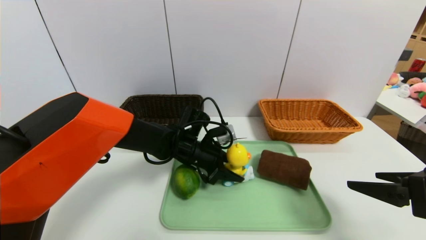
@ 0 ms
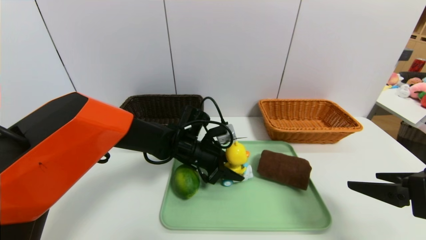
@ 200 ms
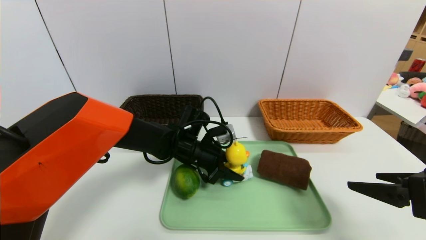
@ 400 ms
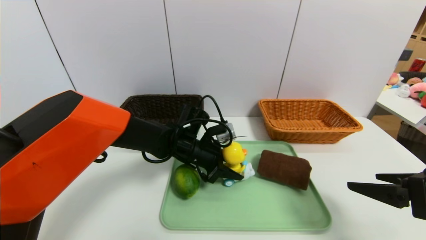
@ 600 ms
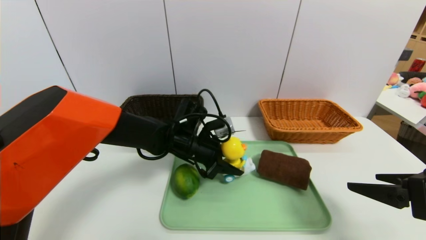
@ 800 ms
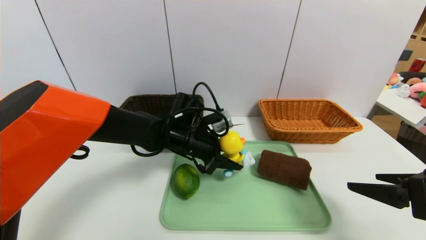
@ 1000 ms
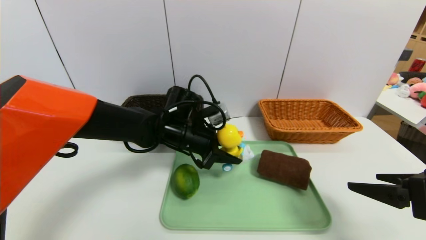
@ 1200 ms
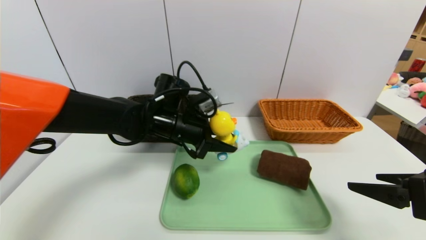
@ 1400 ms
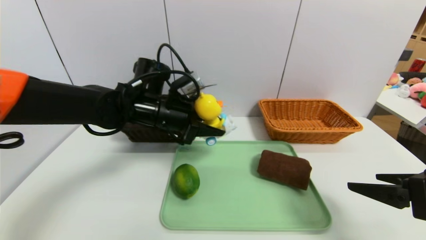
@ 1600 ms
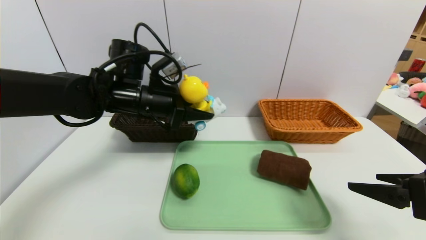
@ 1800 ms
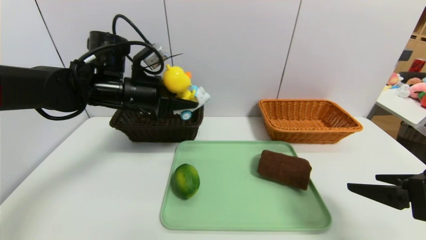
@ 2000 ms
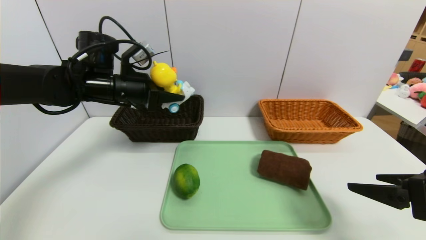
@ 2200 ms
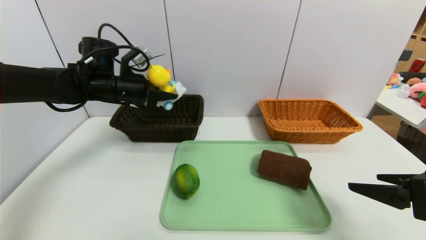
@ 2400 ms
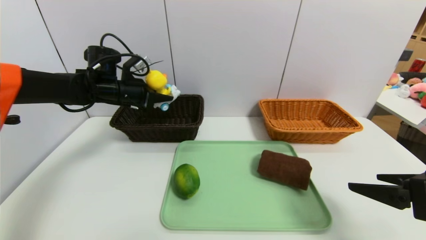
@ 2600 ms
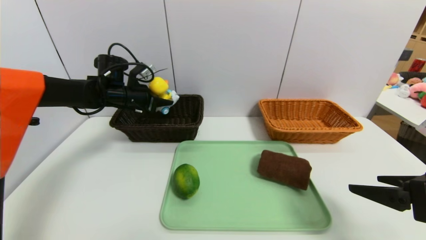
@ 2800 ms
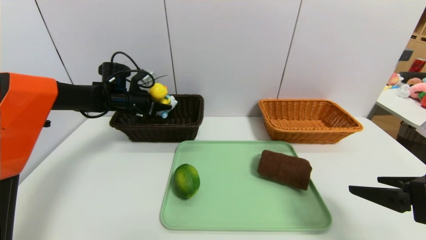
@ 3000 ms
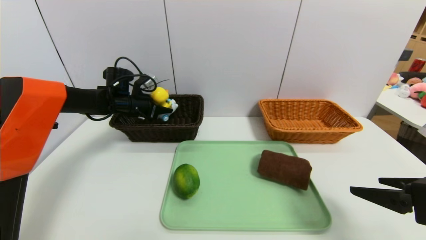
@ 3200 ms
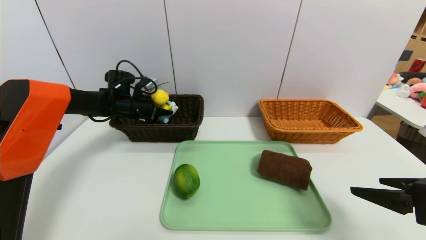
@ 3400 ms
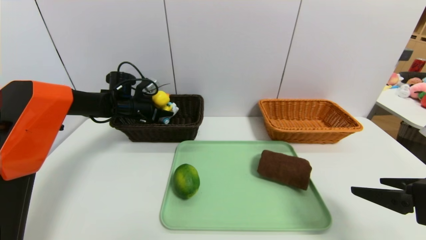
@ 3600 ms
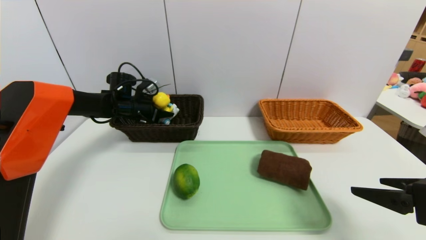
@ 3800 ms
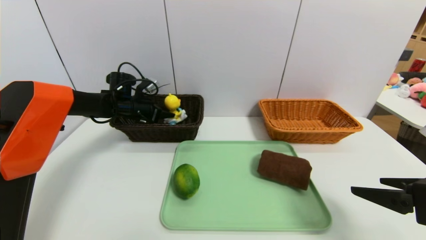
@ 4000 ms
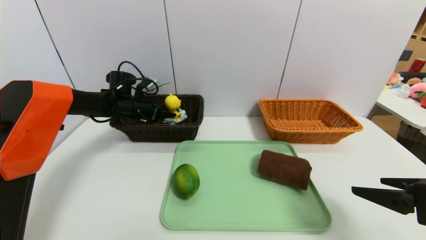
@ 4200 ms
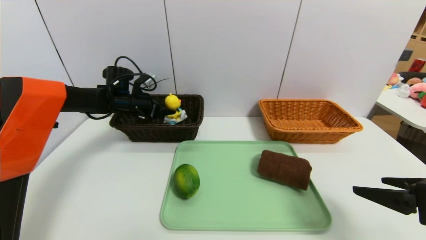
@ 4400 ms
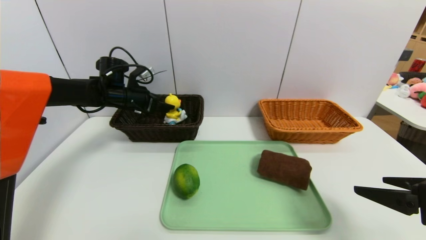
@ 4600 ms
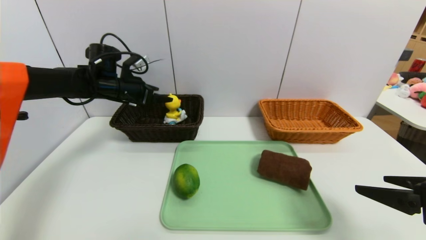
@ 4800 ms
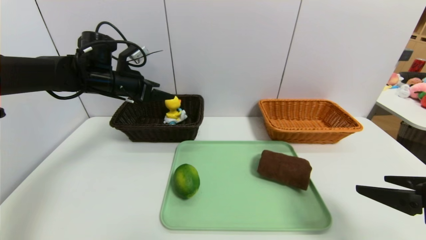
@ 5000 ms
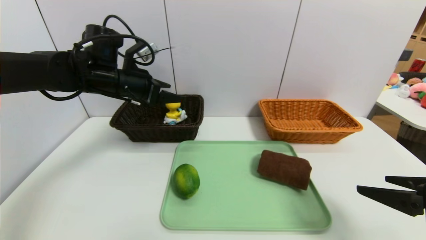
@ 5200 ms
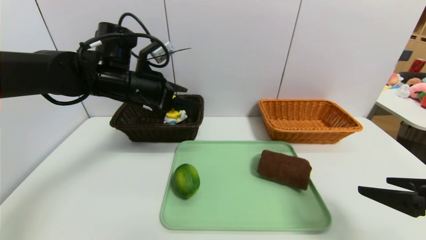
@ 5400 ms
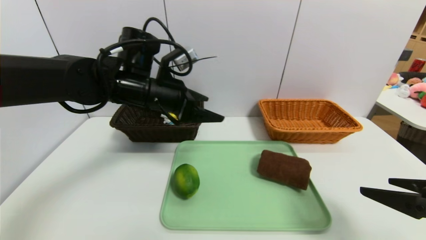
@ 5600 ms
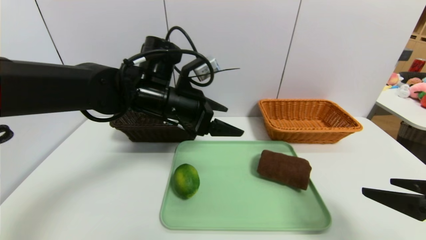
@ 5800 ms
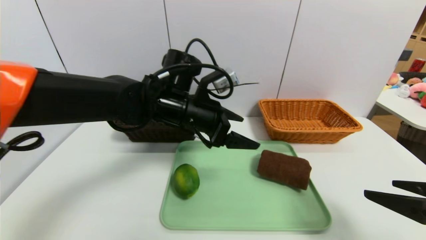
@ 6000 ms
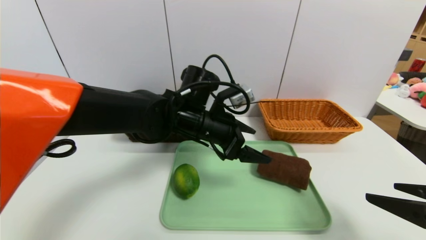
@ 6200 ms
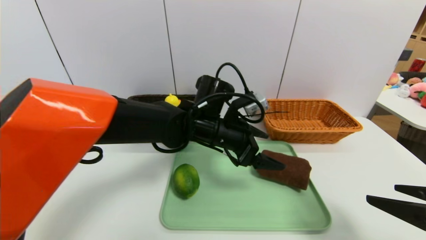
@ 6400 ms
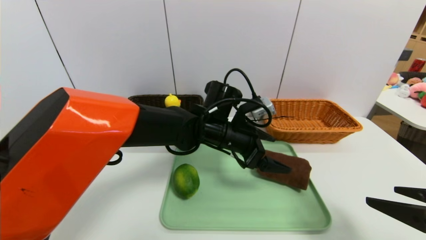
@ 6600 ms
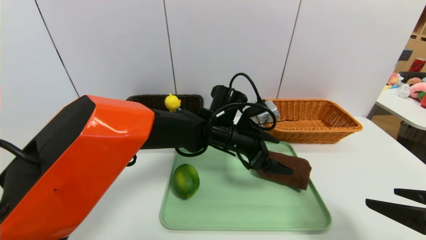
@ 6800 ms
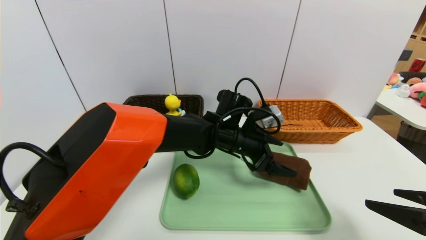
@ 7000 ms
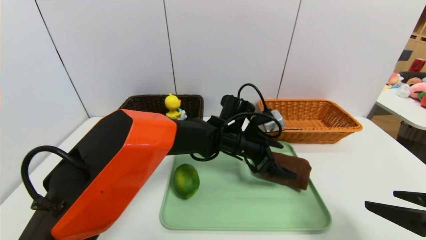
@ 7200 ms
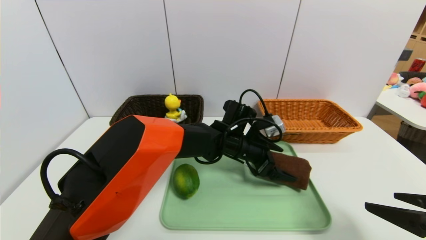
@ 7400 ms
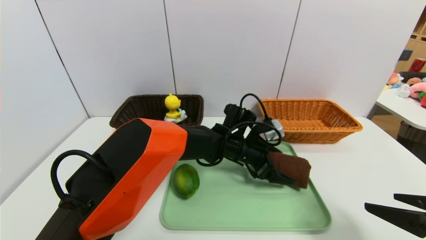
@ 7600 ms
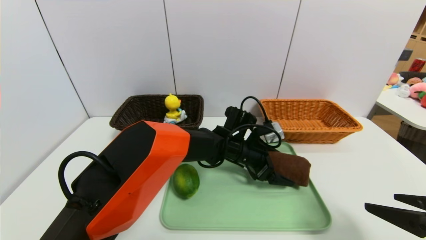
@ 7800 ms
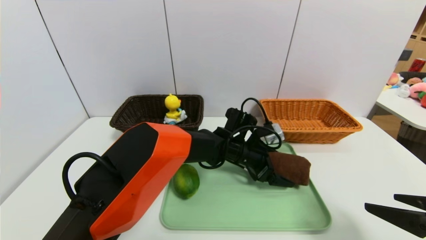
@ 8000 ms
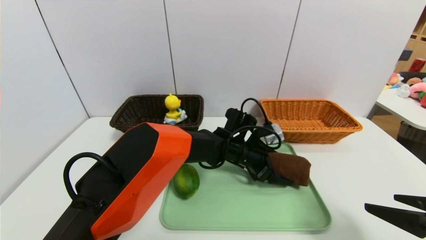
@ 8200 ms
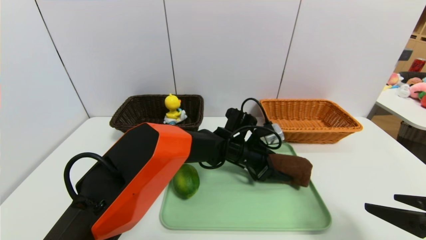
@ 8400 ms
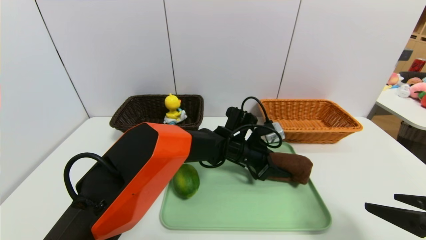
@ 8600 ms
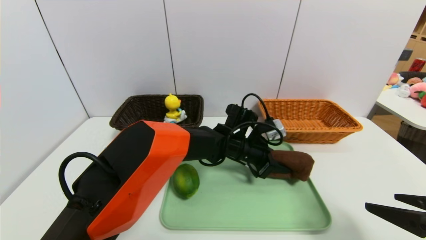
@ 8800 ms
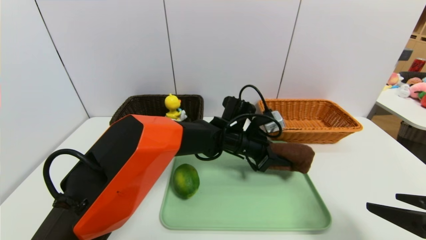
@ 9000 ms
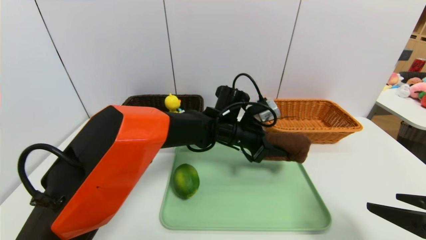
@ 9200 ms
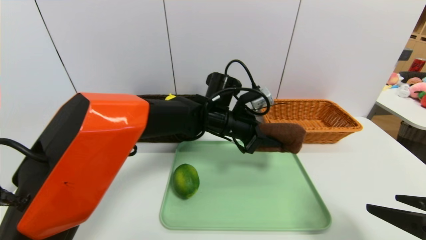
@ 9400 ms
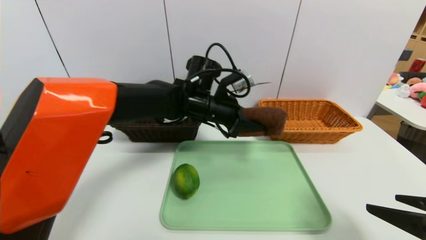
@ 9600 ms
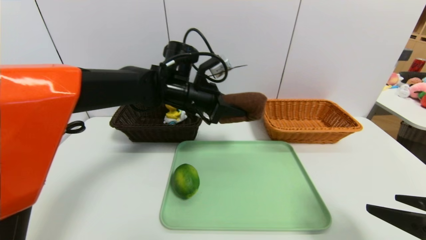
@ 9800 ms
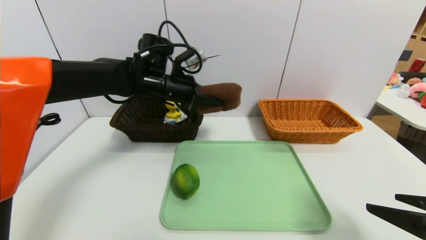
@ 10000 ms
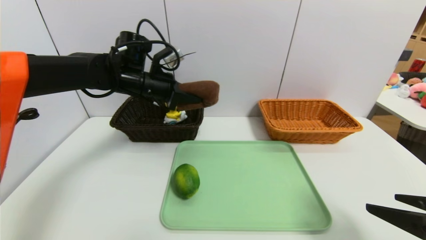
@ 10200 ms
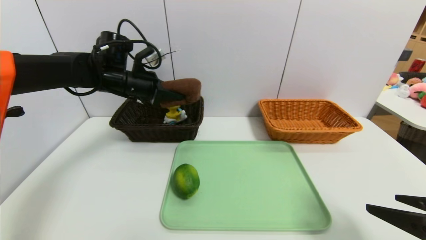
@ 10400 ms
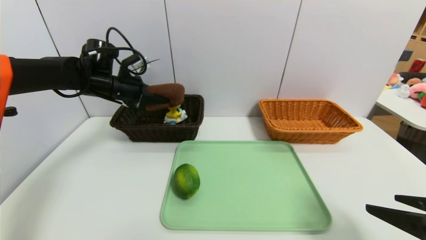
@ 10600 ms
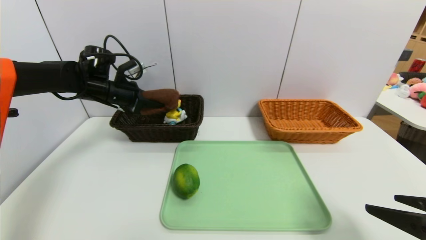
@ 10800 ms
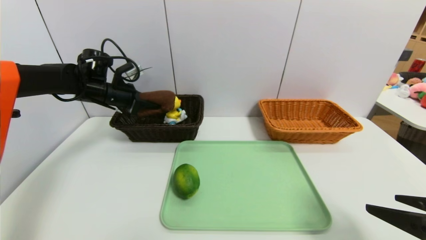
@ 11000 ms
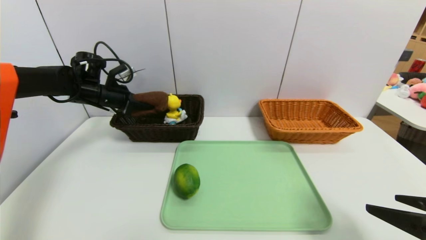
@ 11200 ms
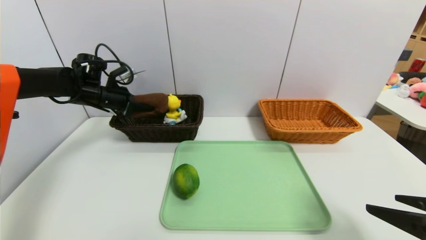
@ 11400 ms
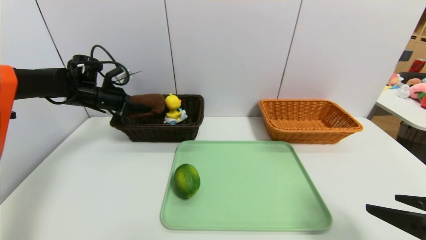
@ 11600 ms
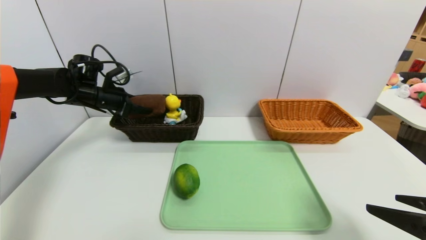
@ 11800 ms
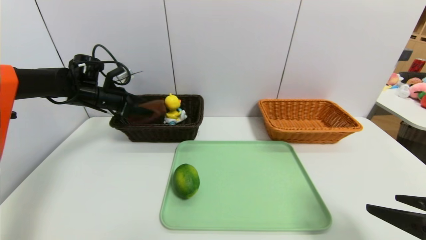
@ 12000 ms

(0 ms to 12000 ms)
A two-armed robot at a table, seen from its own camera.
Task of the whole recording: place the food in the right basket with the right gripper, and place the non food items in the left basket with the left gripper.
Step, 0 ms - 4200 ms: Grasp the yellow duck and put it in the left basket.
0 ms - 1600 ms: The left gripper heads upward and to the left, covering approximately 15 cm.
1600 ms - 3000 ms: The left gripper is displaced to the left and forward by some 20 cm.
3000 ms - 4400 ms: The left gripper opens its fingers.
4400 ms - 6000 ms: The left gripper heads to the right and backward, covering approximately 25 cm.
6000 ms - 7600 ms: The left gripper moves downward and to the right, roughly 15 cm.
7600 ms - 9000 ms: The left gripper closes up.
9000 ms - 10400 ms: The left gripper shifts some 30 cm to the left and upward.
10400 ms - 12000 ms: The left gripper travels to the left by approximately 10 cm, and opens.

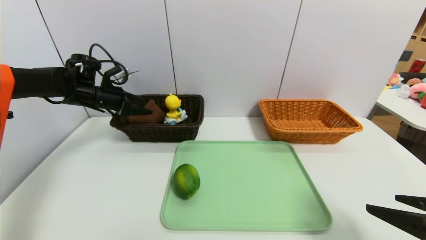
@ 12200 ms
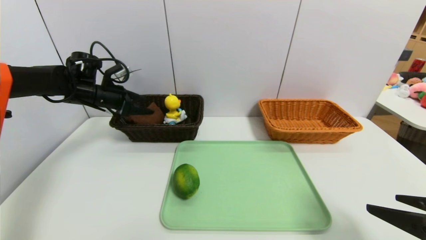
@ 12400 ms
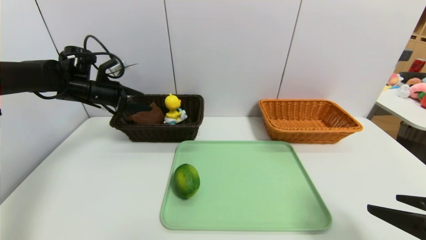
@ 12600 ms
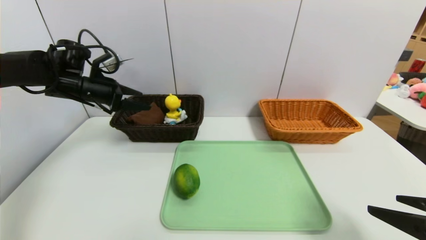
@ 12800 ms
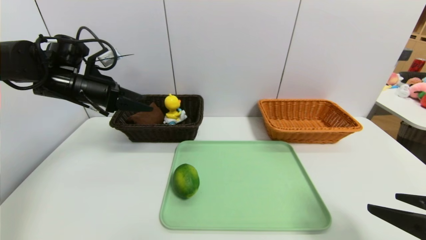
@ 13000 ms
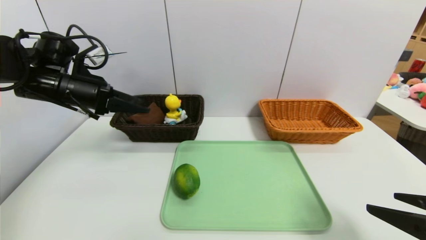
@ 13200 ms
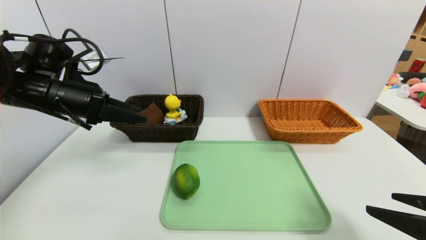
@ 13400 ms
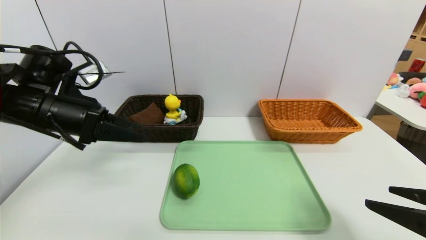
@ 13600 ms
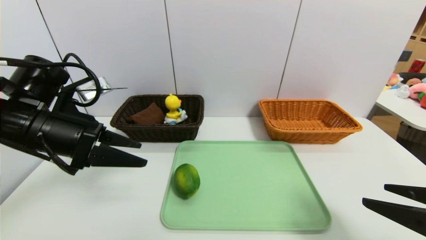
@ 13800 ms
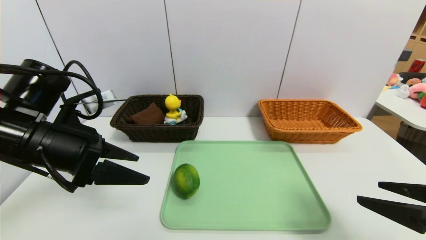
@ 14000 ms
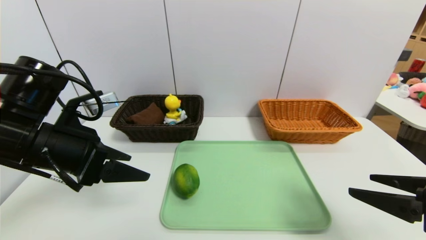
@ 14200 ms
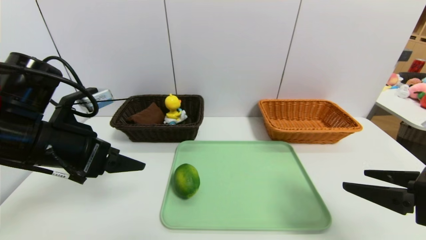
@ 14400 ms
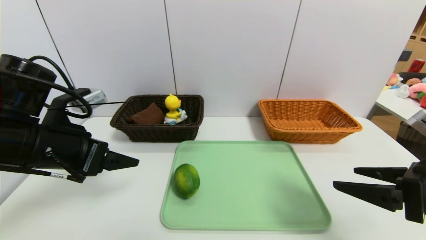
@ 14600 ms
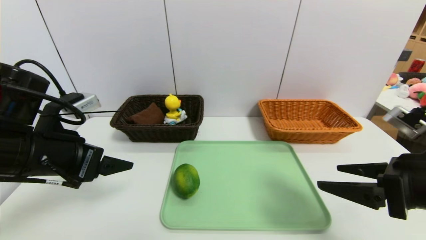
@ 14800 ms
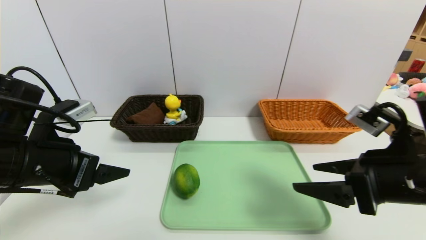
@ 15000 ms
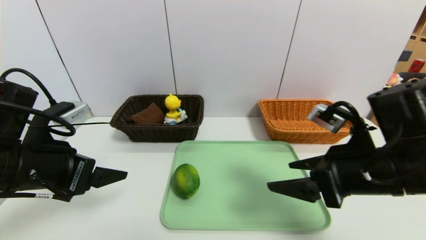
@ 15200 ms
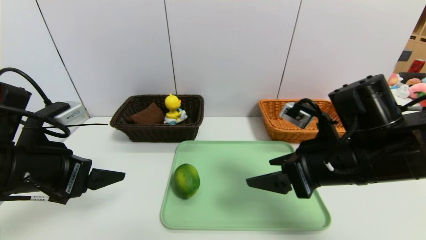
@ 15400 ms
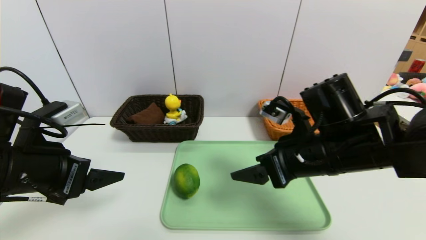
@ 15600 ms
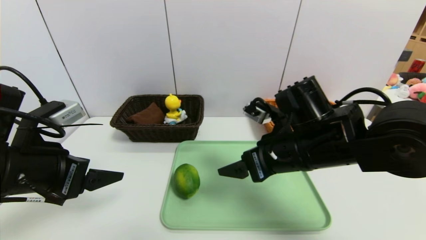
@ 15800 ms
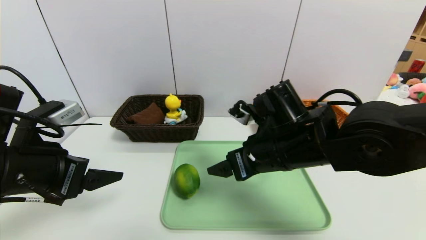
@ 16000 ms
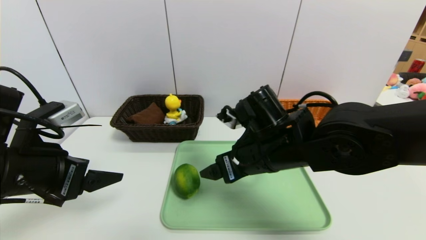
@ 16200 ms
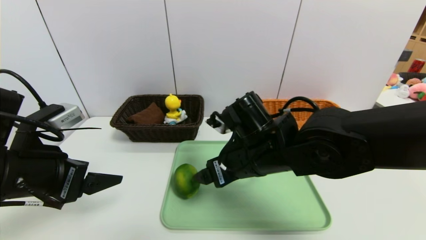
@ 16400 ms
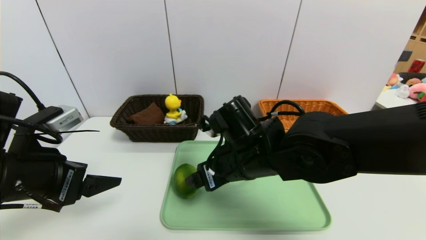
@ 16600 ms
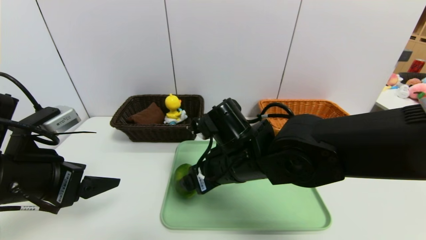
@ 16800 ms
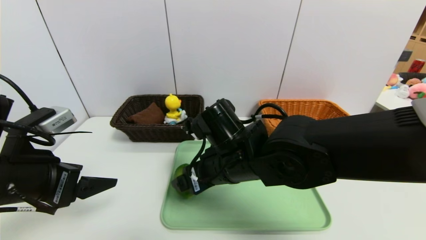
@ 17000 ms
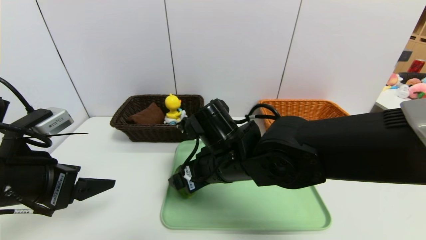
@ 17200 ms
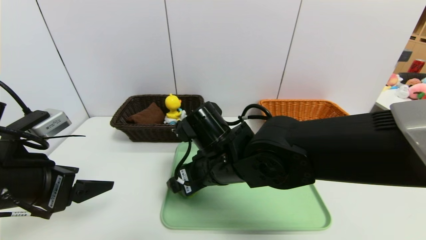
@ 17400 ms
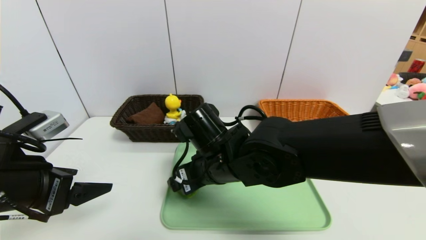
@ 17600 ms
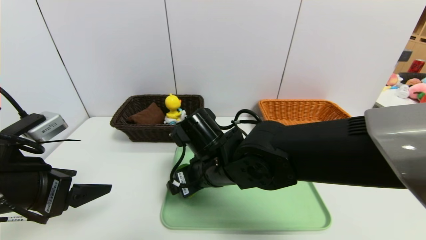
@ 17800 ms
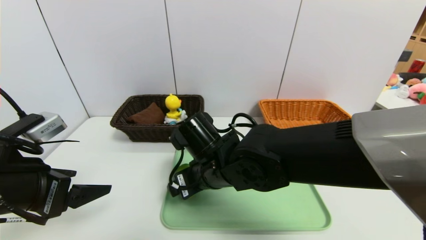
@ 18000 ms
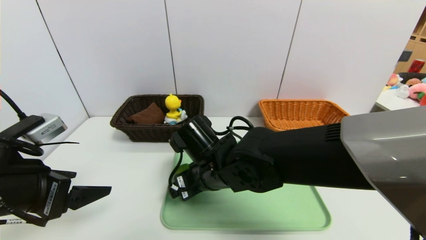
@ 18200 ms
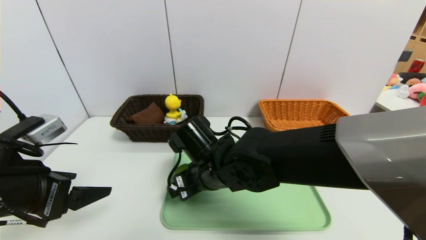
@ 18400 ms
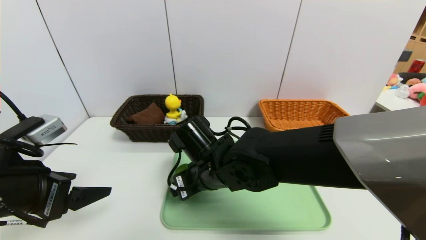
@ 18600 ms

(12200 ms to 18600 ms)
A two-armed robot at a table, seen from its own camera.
Task of the whole recording: place the food in the right basket with the right gripper, and place the non food items in the left basket with the left gripper.
12200 ms - 13800 ms: The left gripper goes roughly 20 cm backward.
13800 ms - 15400 ms: The right gripper moves to the left and forward, about 20 cm. The left gripper goes approximately 5 cm backward.
15400 ms - 17000 ms: The right gripper heads to the left, covering approximately 15 cm.
17000 ms - 18600 ms: The right gripper moves about 5 cm.
